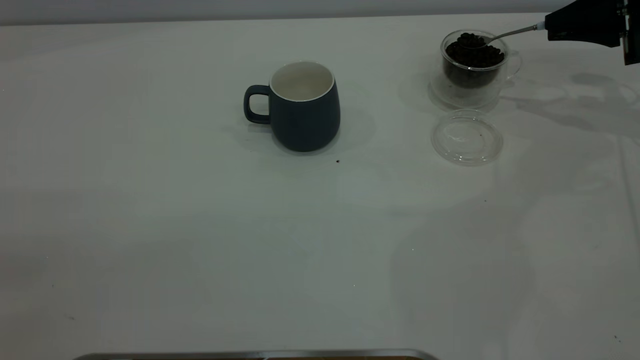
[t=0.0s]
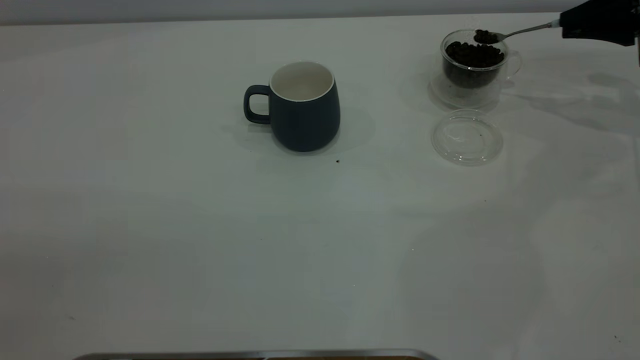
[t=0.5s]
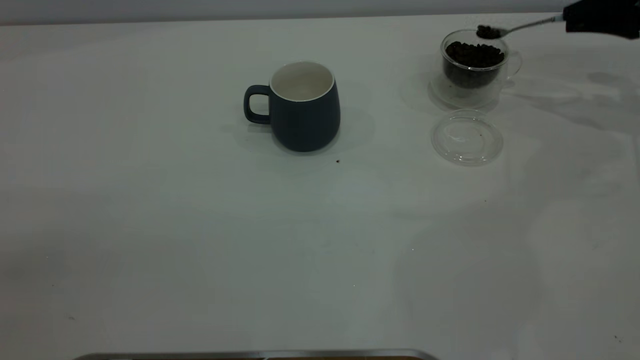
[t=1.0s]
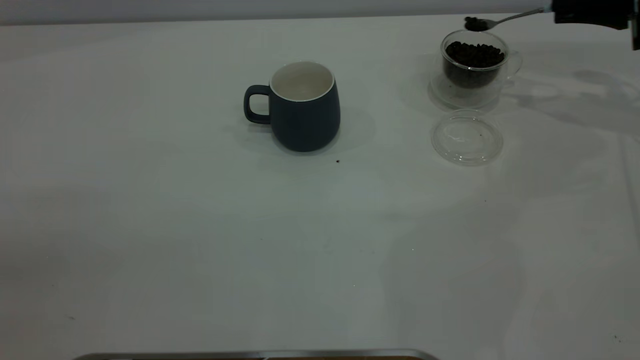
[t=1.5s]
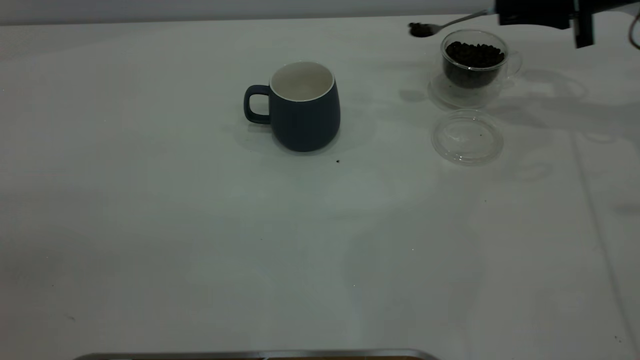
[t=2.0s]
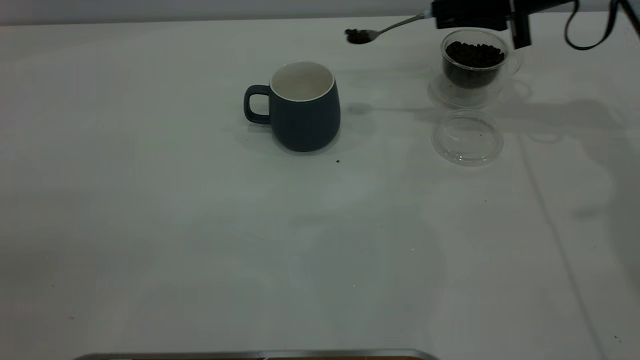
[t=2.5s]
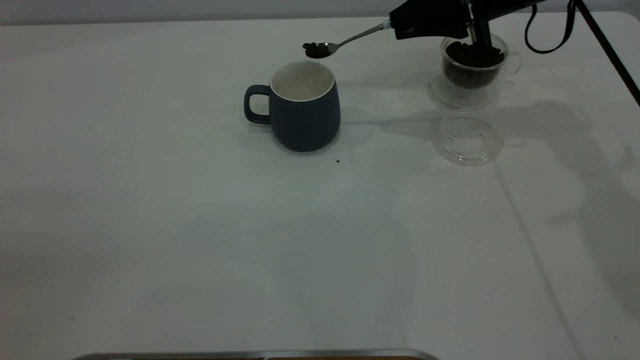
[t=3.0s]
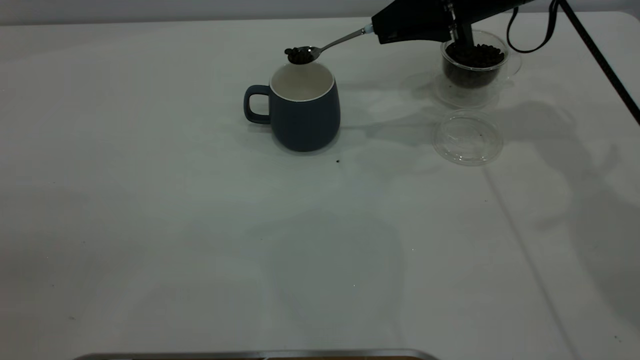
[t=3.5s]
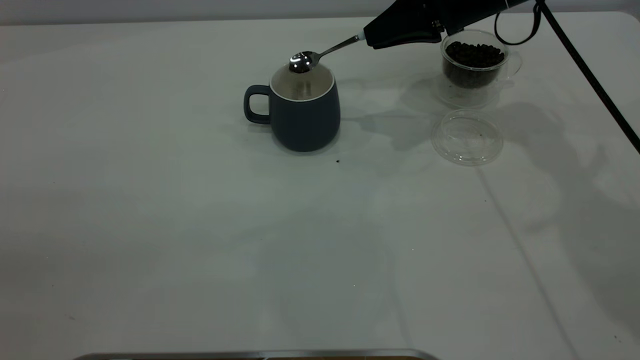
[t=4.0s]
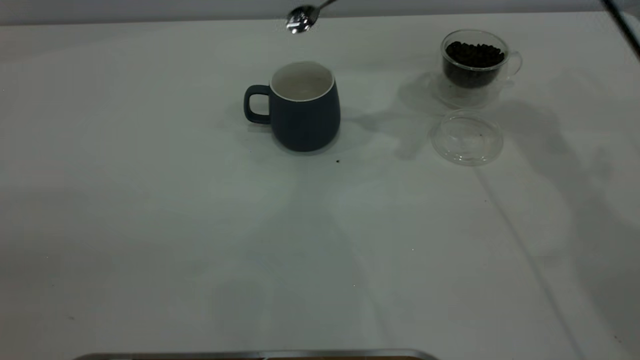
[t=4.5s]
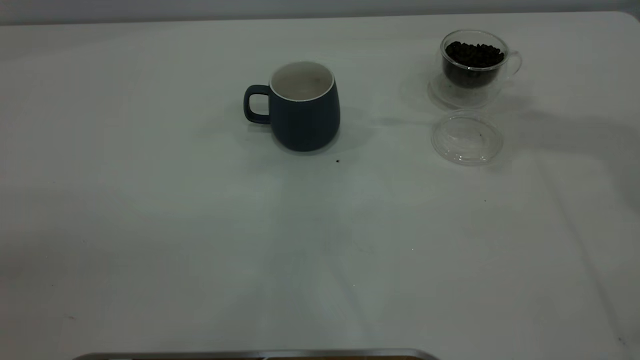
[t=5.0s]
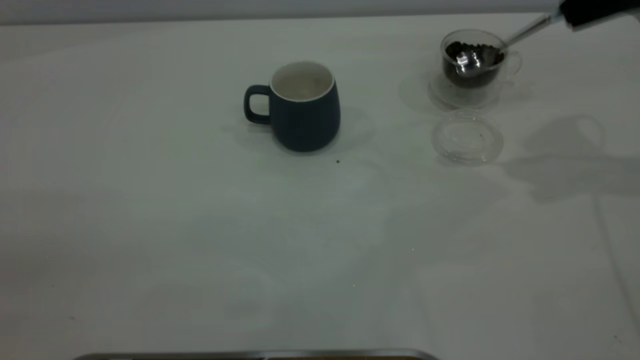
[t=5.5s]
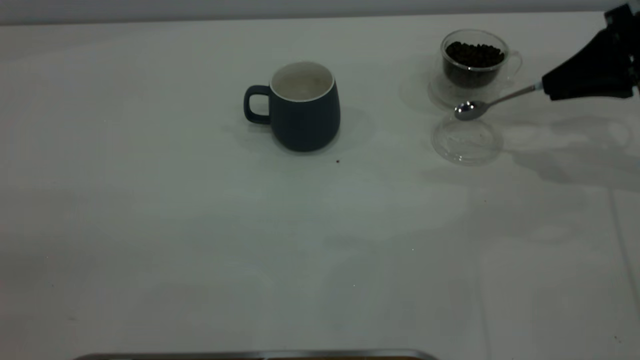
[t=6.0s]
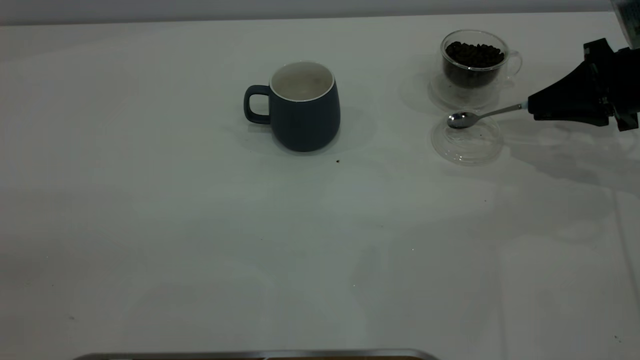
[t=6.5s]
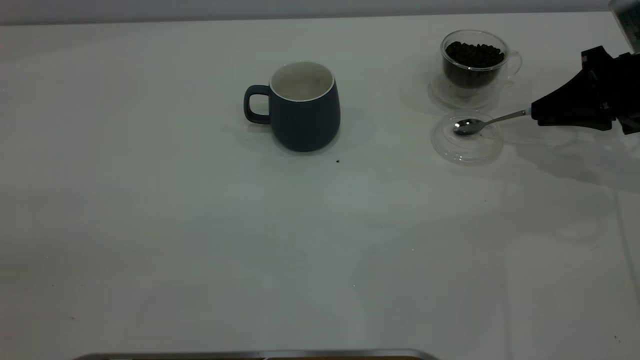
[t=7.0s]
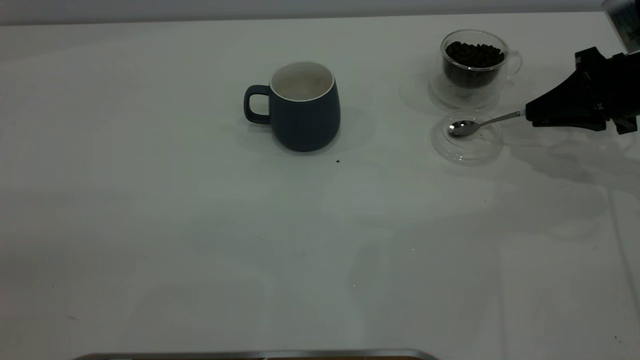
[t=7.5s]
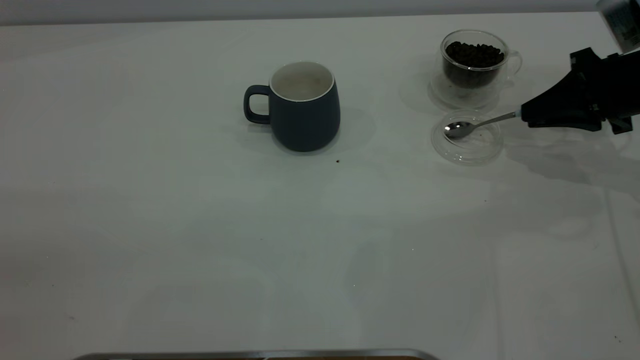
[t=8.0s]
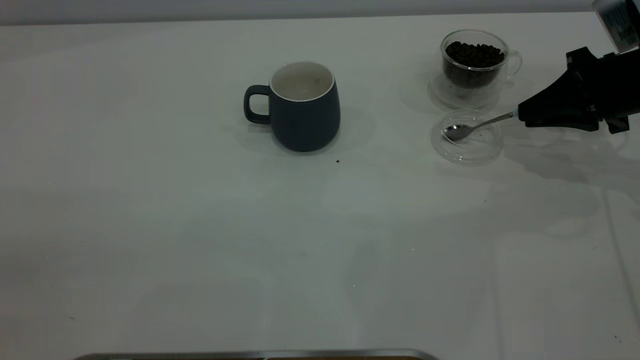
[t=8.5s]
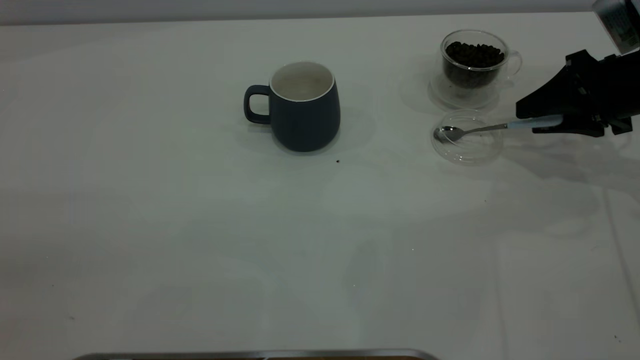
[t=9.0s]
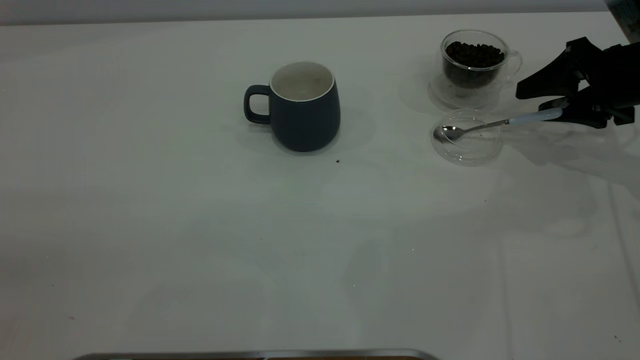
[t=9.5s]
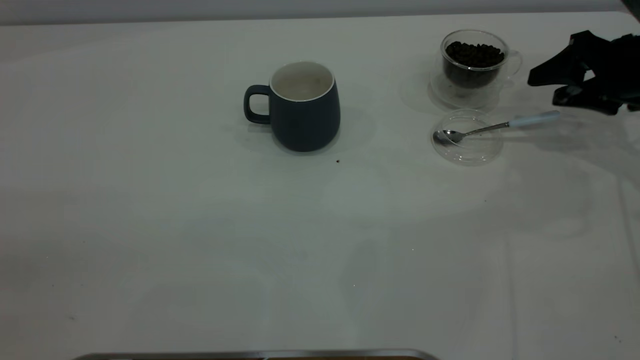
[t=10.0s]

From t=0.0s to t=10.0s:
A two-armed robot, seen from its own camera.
Task of the whole recording: the left gripper place the grey cup in the center of the table, the right gripper take the blue spoon from the cup lid and scoop out the coffee beans from the coffee cup and put them into the grey cup, the right gripper put the spoon back into the cup lid.
Step, from t=0.0s to t=4.0s: Scoop a spoonful of beans into the cup.
Step, from t=4.5s to t=10.0s: Place the spoon back in its original place.
From t=0.0s to t=2.0s: The right gripper heads to the left, covering approximately 5 cm.
From t=2.0s to t=4.0s: The right gripper heads to the left, covering about 15 cm.
From t=4.0s to t=6.0s: The right gripper is displaced to the right and backward by some 20 cm, and moves some 20 cm upward and comes back.
From t=6.0s to t=8.0s: The grippers move only a little.
From t=8.0s to t=10.0s: The right gripper opens its fingers.

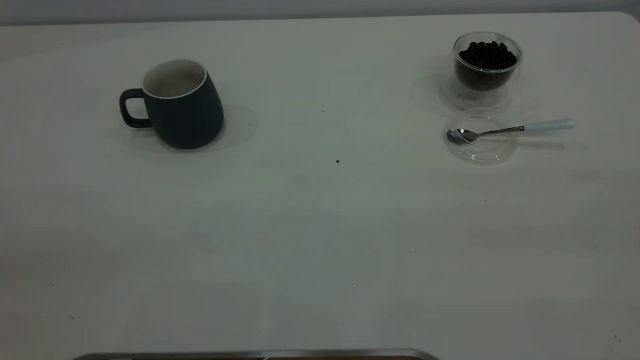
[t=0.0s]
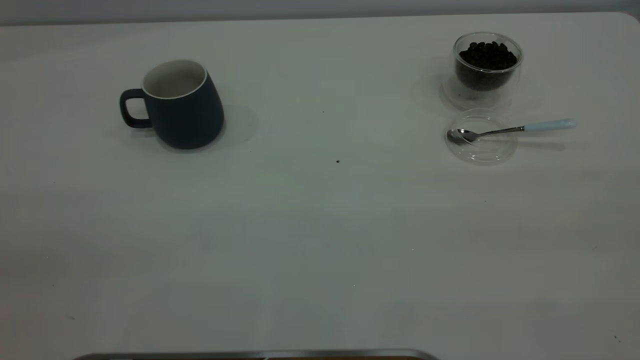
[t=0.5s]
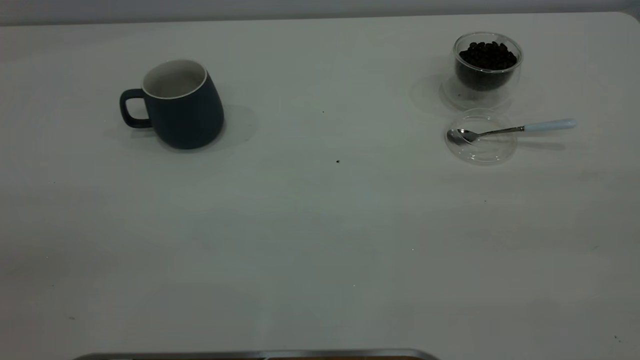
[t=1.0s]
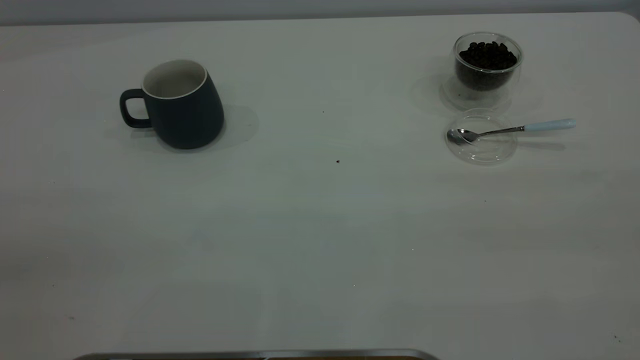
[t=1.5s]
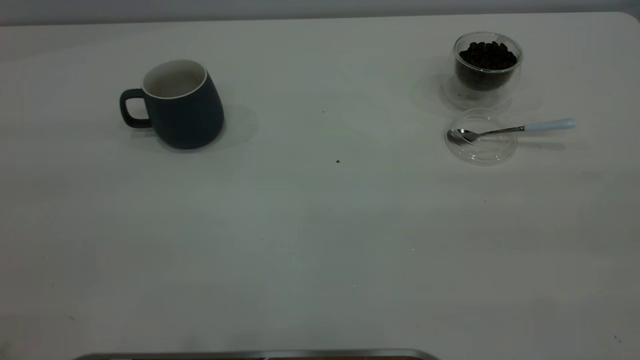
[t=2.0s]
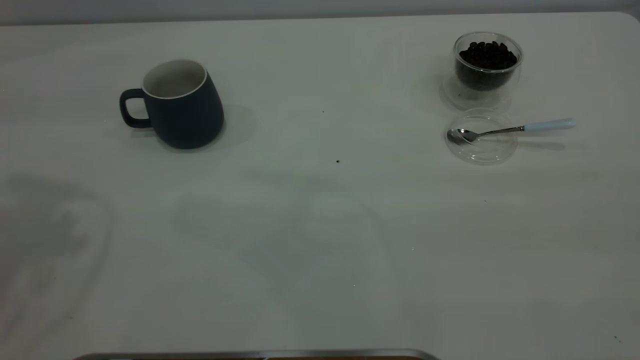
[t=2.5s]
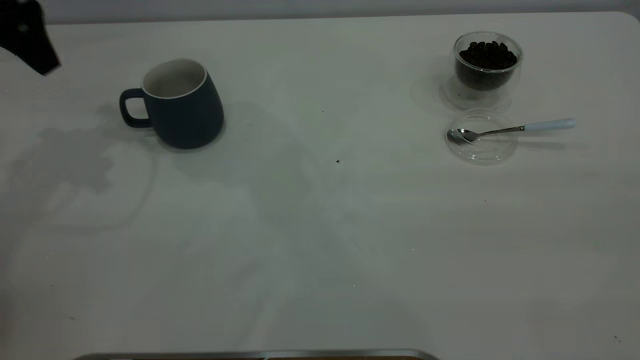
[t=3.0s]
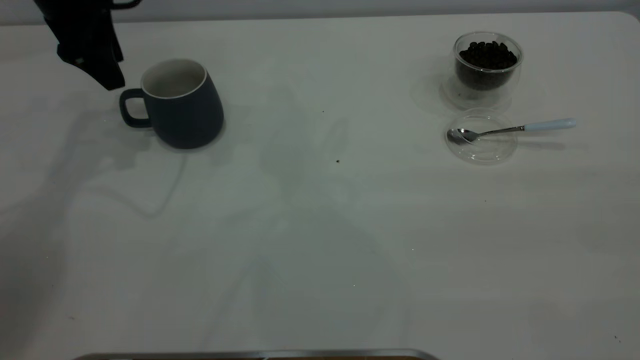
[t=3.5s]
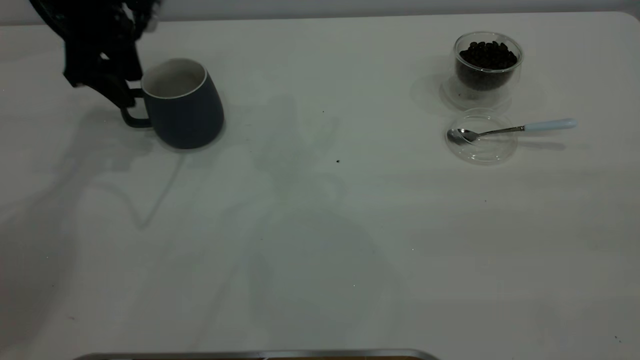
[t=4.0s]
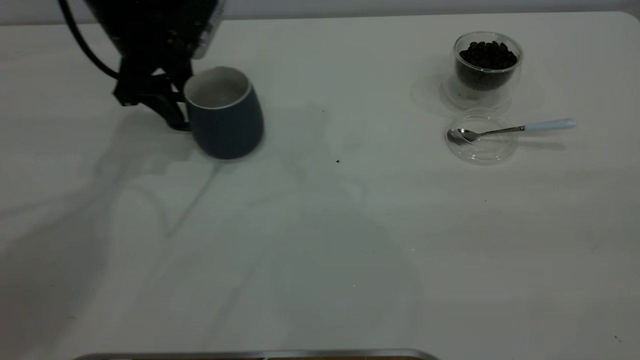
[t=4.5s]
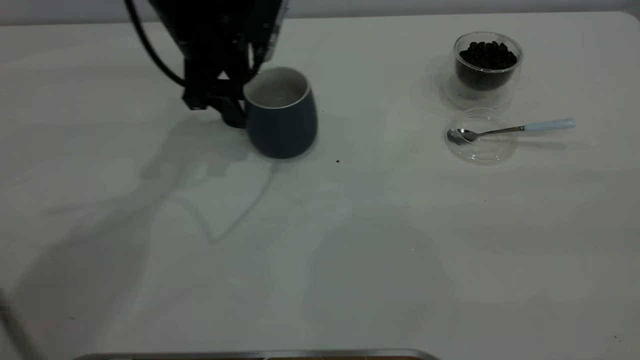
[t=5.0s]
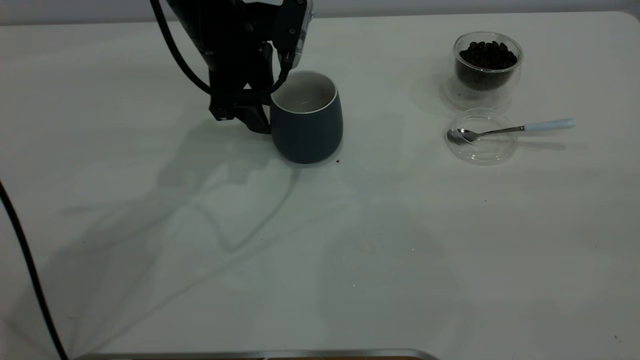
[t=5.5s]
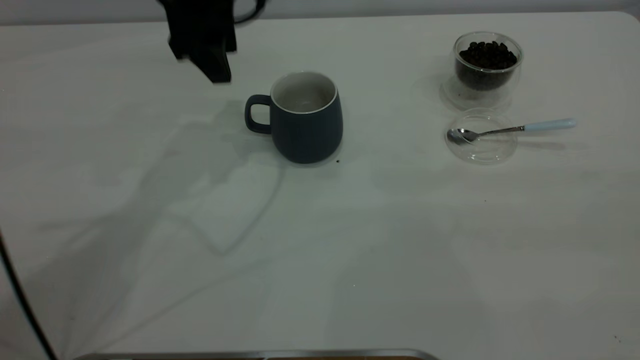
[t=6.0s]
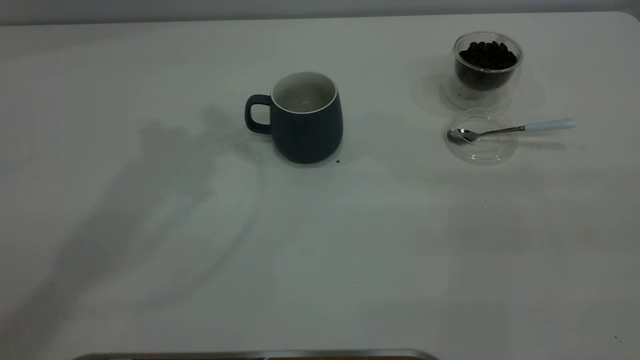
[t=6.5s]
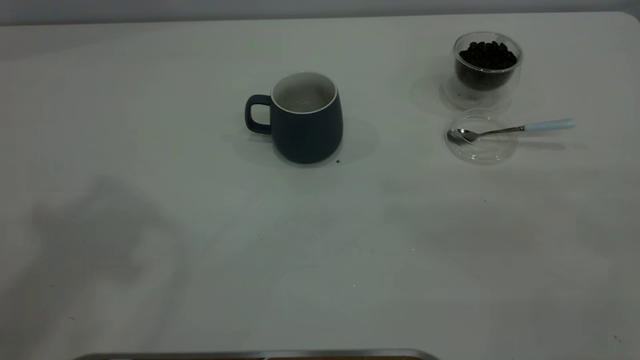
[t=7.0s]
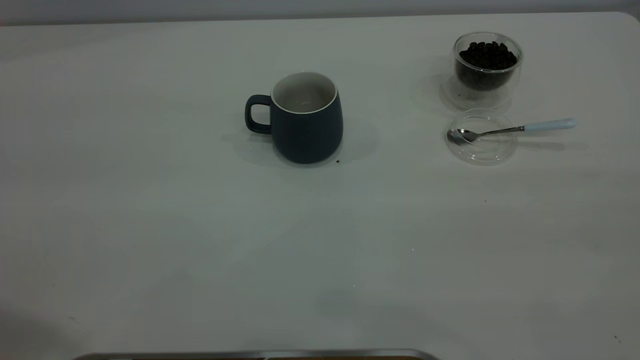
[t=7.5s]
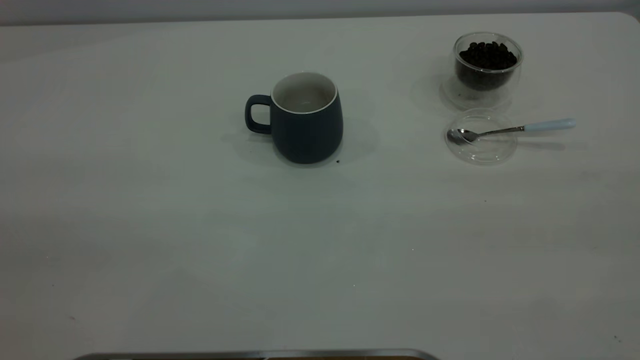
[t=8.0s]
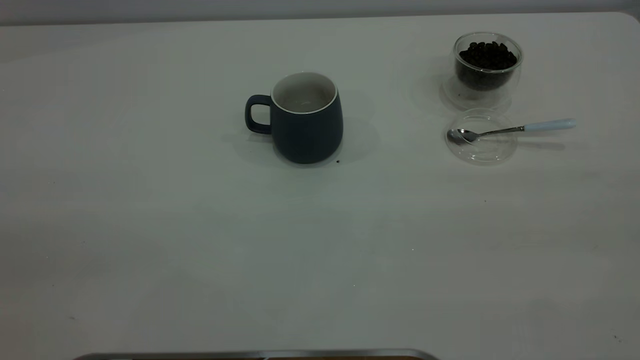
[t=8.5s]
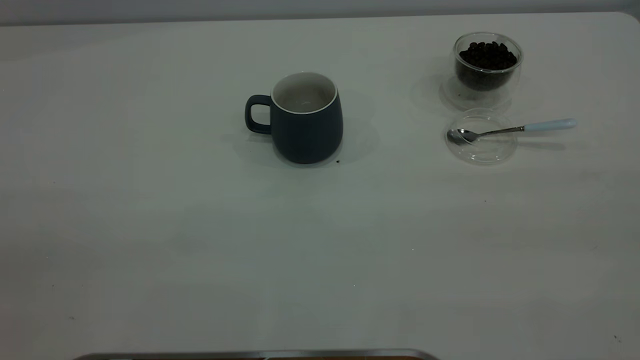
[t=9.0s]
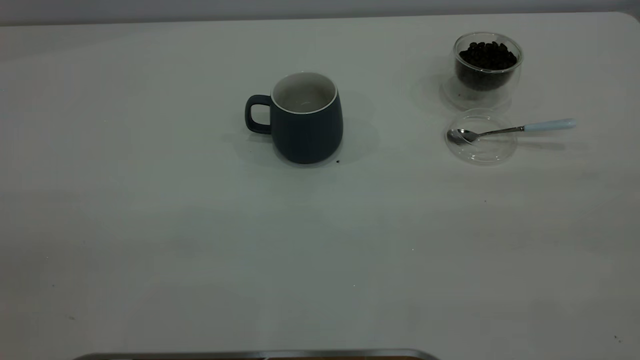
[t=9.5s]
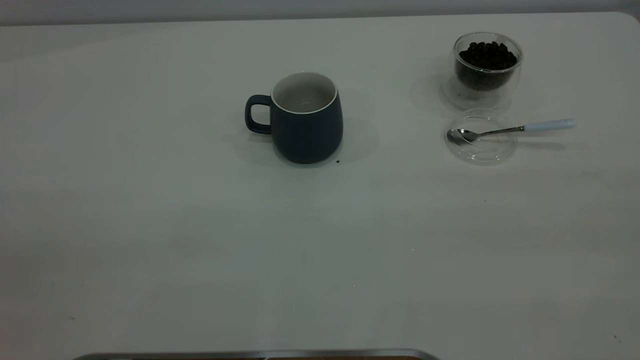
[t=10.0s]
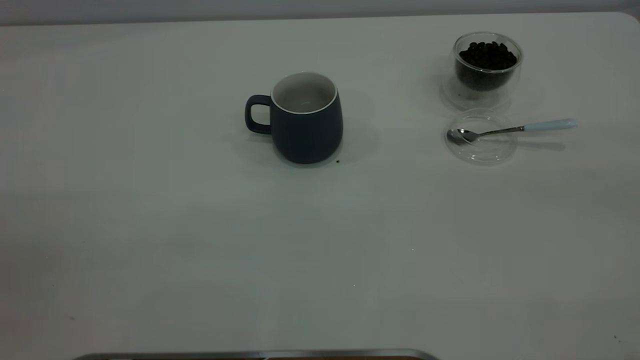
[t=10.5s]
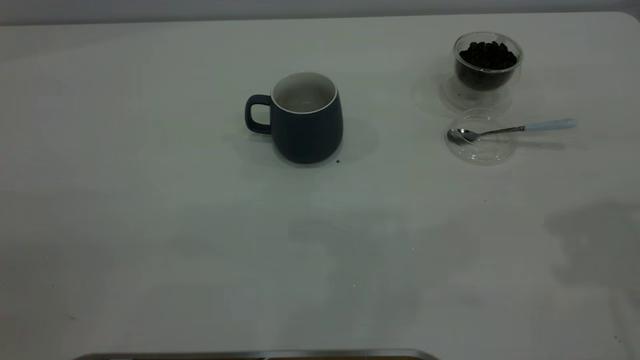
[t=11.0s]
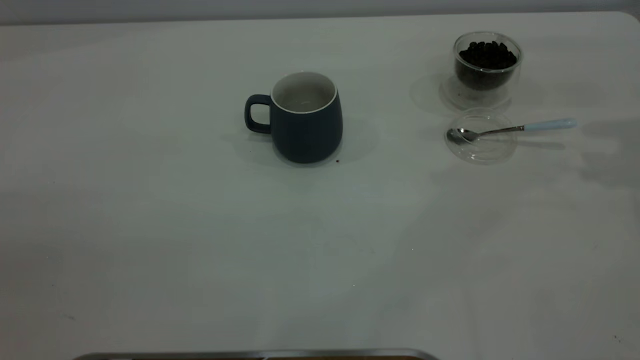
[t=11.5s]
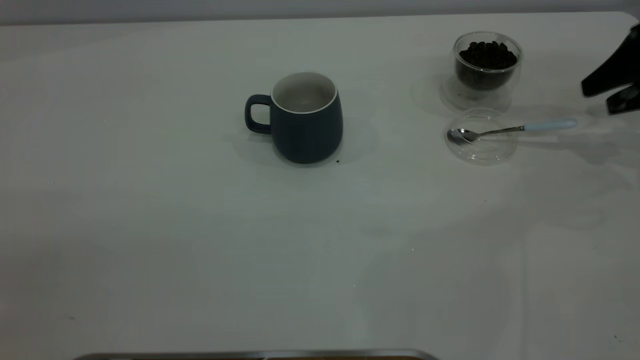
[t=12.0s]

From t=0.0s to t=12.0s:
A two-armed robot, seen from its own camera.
Task of the whole recording: the left gripper place the grey cup in the center of the table, the right gripper take the blue spoon from the cup lid and scoop out the coffee beans from the coffee cup and put them into the grey cup, the right gripper put the spoon back into the cup lid.
Step, from t=0.0s to t=5.5s: Move the cup to the center of view.
From t=2.0s to t=4.0s: The left gripper heads forward and downward, covering some 40 cm.
From t=4.0s to t=6.0s: The left gripper goes roughly 15 cm to the right and upward.
From t=6.0s to t=8.0s: The left gripper is displaced backward and to the left by about 40 cm.
From t=10.0s to t=12.0s: The right gripper is displaced forward and downward by approximately 50 cm.
